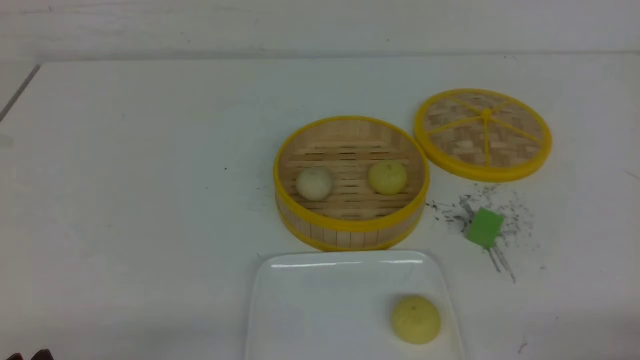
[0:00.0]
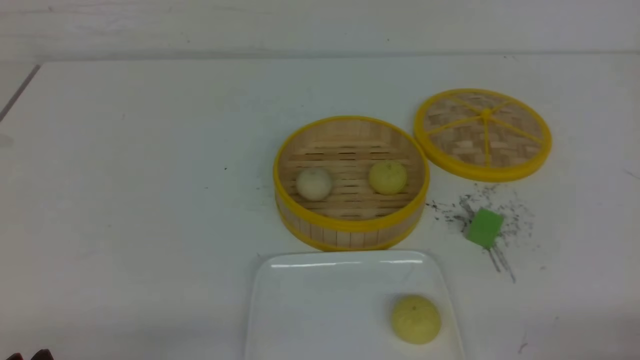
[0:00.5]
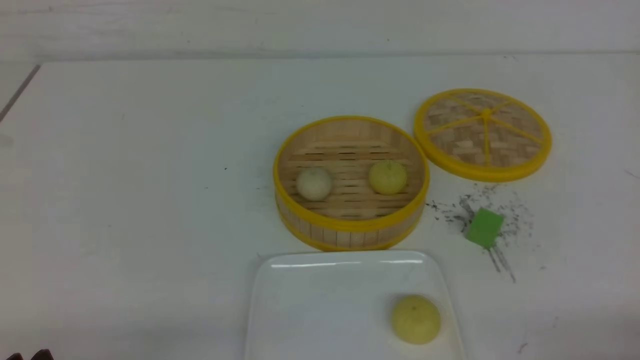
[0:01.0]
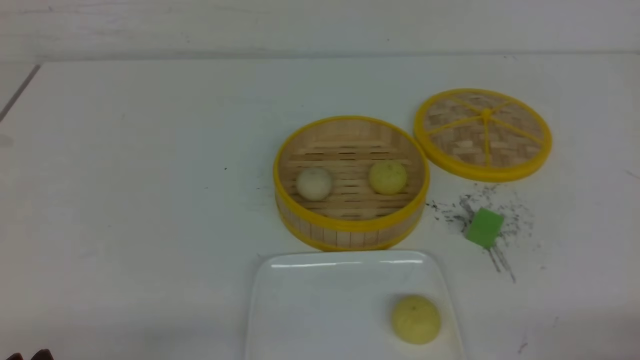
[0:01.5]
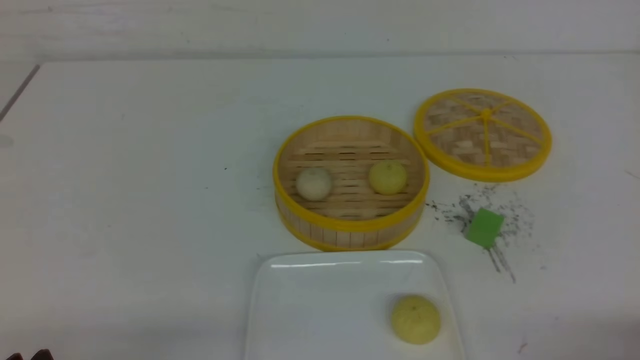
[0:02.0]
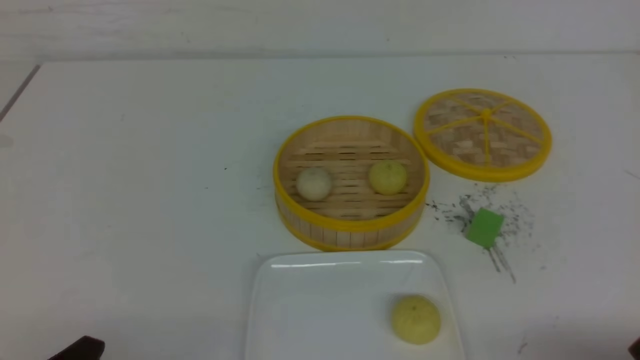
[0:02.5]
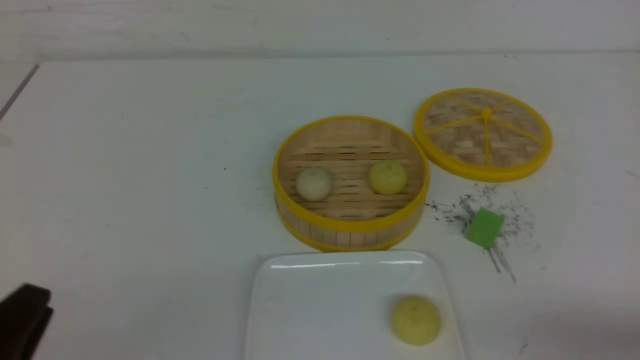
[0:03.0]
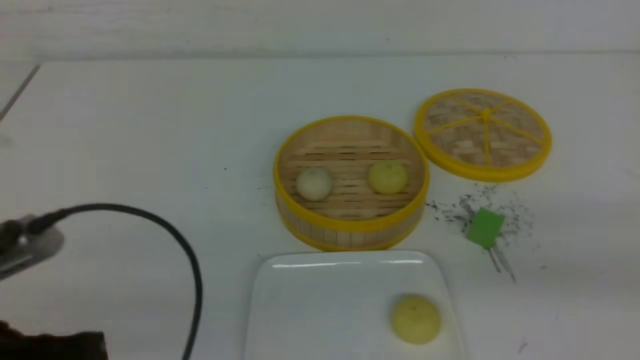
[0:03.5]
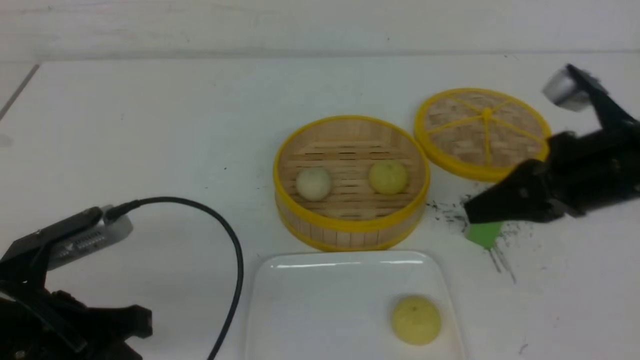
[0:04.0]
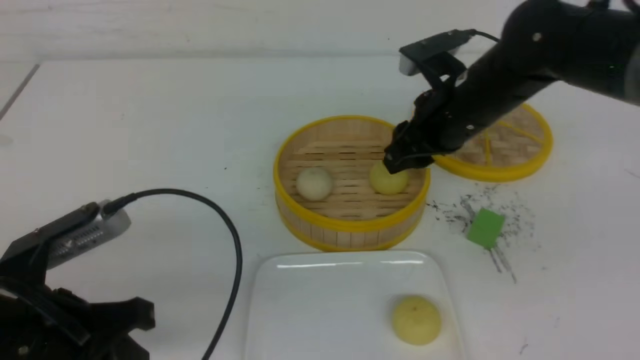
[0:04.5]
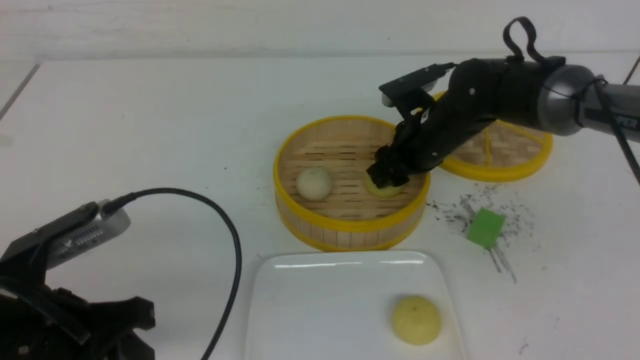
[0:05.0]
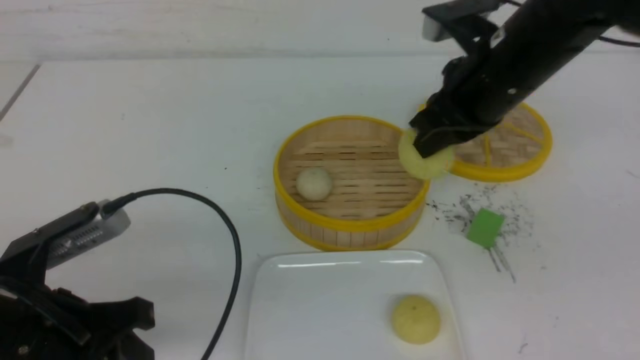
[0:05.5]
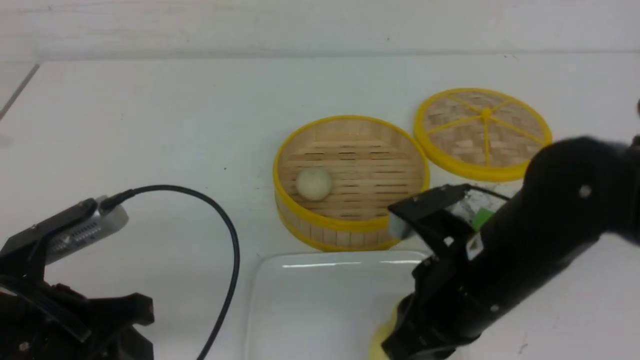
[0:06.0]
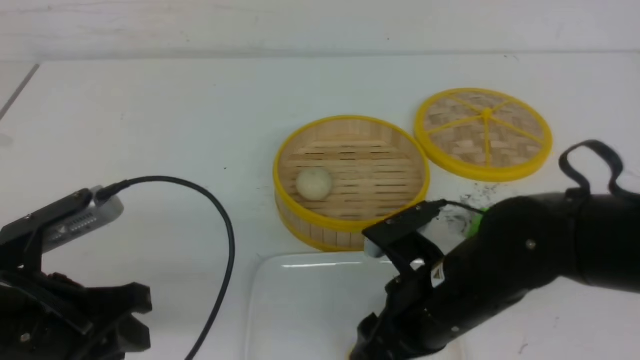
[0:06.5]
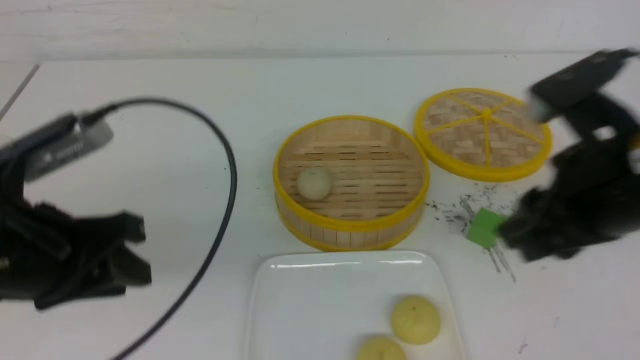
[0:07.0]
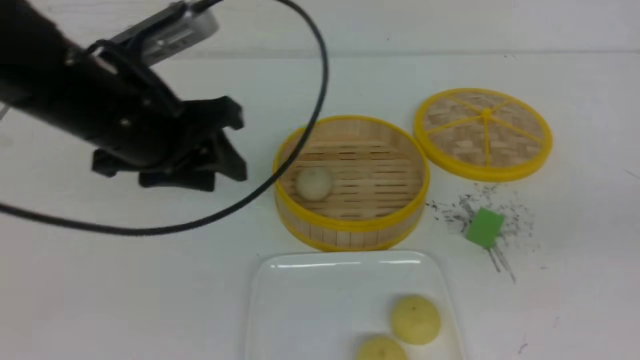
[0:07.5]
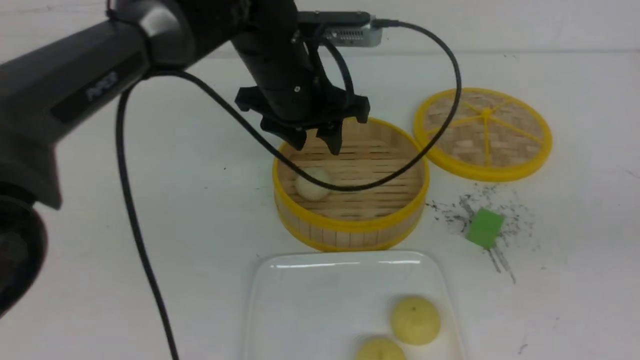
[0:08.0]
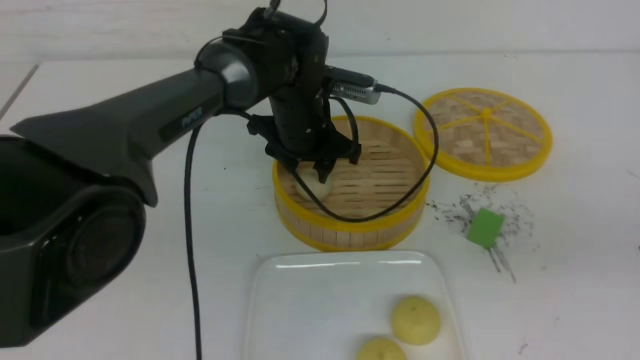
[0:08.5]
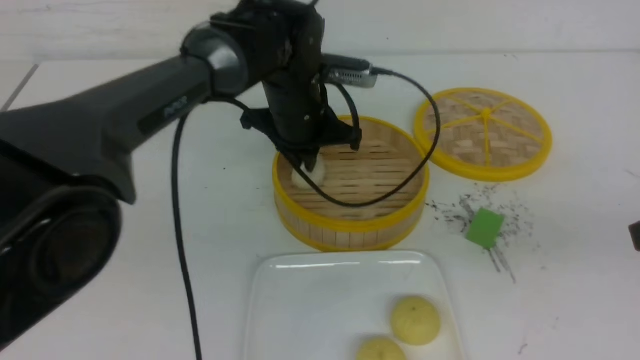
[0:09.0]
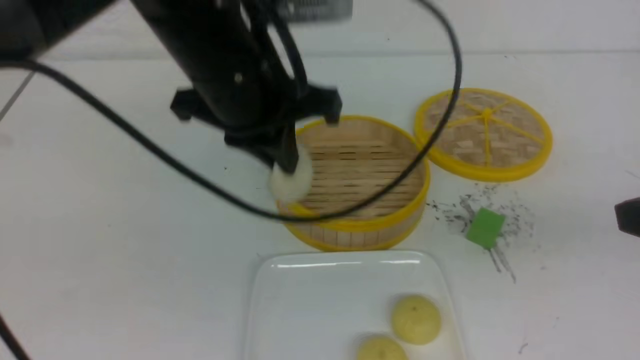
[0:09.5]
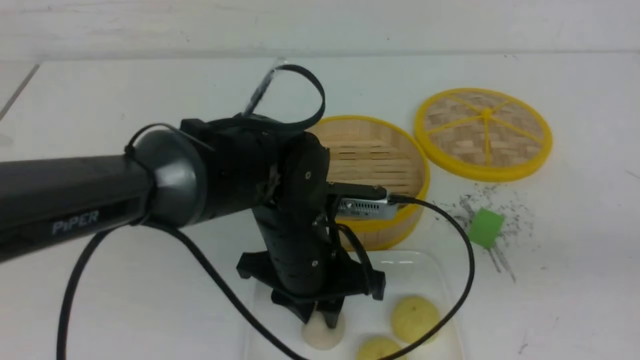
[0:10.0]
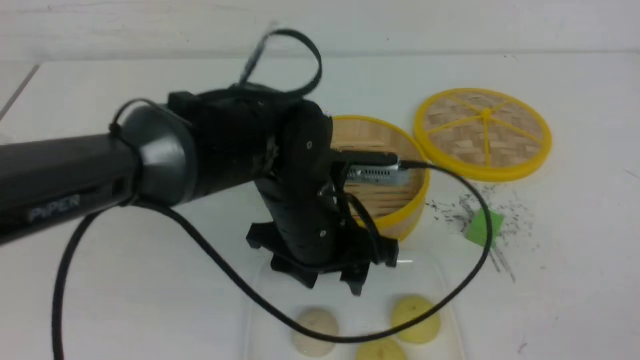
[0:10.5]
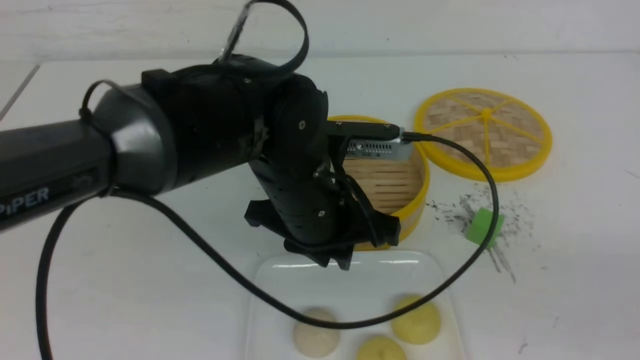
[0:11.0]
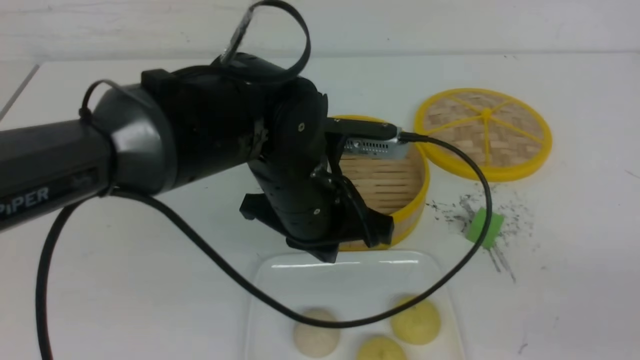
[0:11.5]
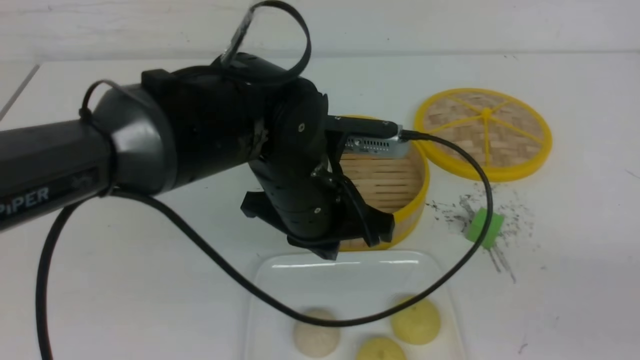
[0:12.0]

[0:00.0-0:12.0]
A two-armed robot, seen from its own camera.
Step, 0.0 to 4.5 s: use the right arm to grab the steamed stuffed bun that is closest to it.
Step, 5.0 to 6.5 s: use the right arm to put the steamed stuffed bun into the plate.
Step, 7.0 to 8.5 s: use the left arm to grab the steamed stuffed bun that is closest to it.
Step, 9.5 to 10.0 s: use the left arm to put the steamed stuffed bun into the plate.
2.0 to 4.0 s: The left gripper shifts roughly 10 cm forward and upward, and closes up. The right gripper travels forward, upward and to the left by some 25 cm, and closes its fingers.
4.0 to 6.0 s: The right gripper travels to the left and downward by approximately 15 cm, goes forward and returns, approximately 15 cm each way, and opens, then closes again; the left gripper opens its fingers.
6.0 to 8.0 s: The left gripper moves forward and to the right, approximately 30 cm, and opens up; the right gripper shifts about 20 cm to the right, upward and backward, and opens, then closes again.
8.0 to 10.0 s: The left gripper travels backward and downward by roughly 15 cm, and closes its fingers.
10.0 to 12.0 s: The left gripper shifts by about 5 cm, and closes. The right gripper is displaced downward and backward by roughly 10 cm.

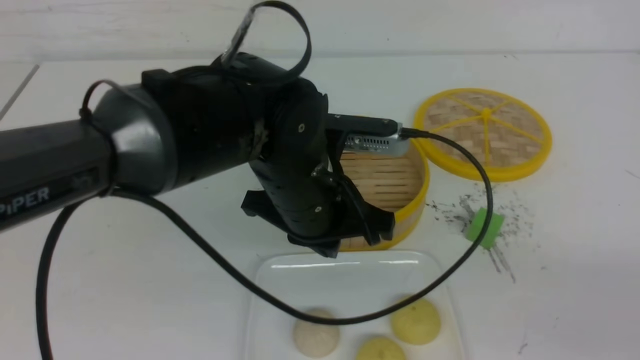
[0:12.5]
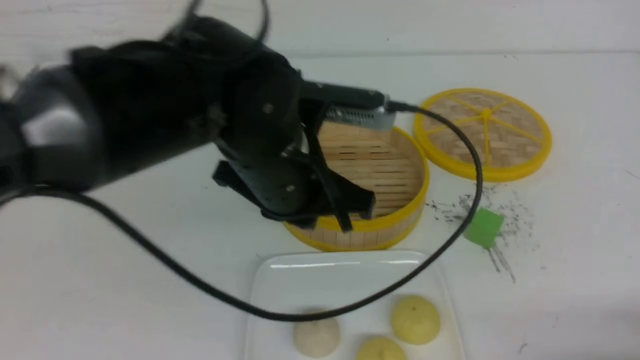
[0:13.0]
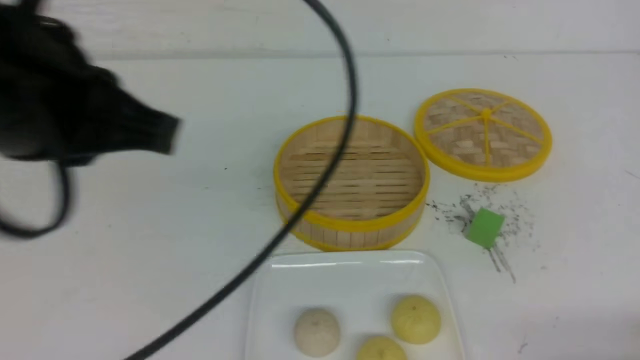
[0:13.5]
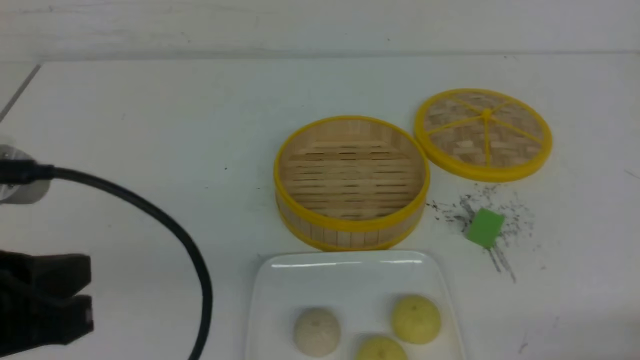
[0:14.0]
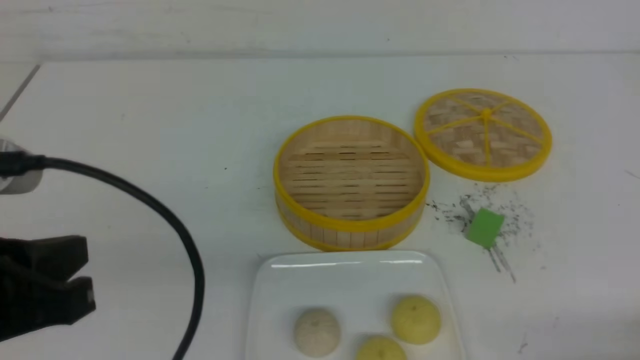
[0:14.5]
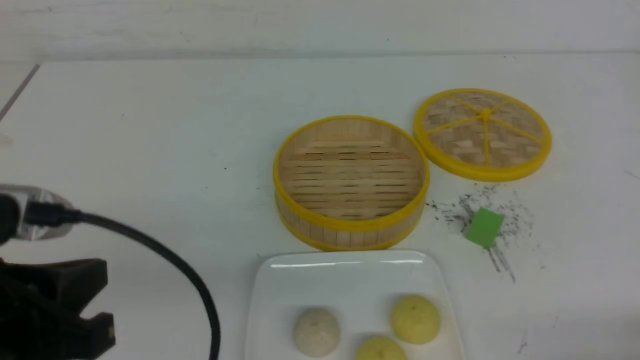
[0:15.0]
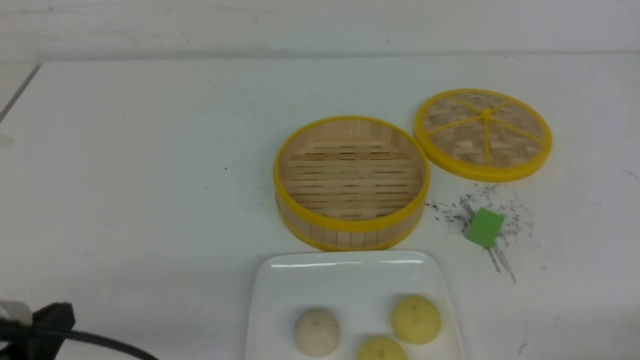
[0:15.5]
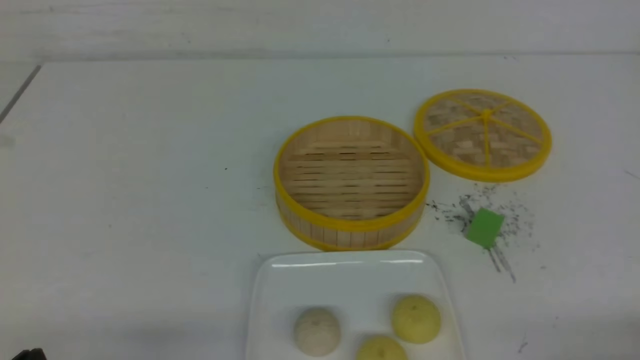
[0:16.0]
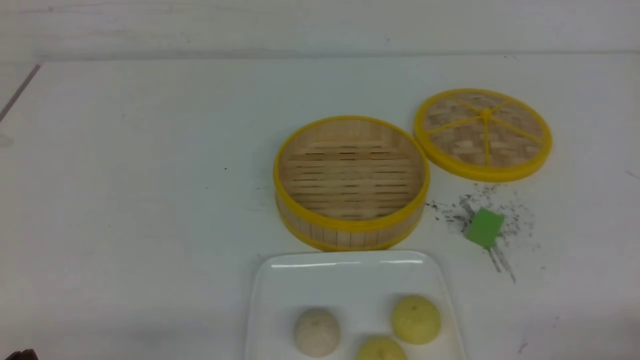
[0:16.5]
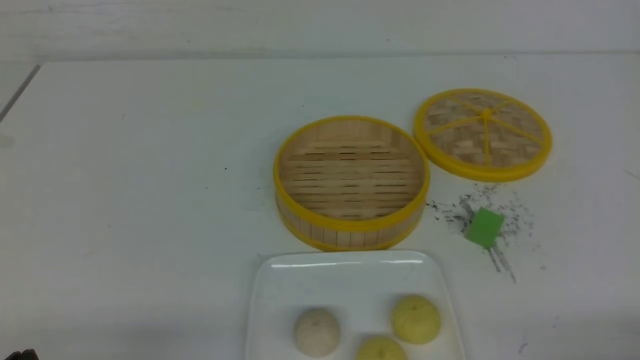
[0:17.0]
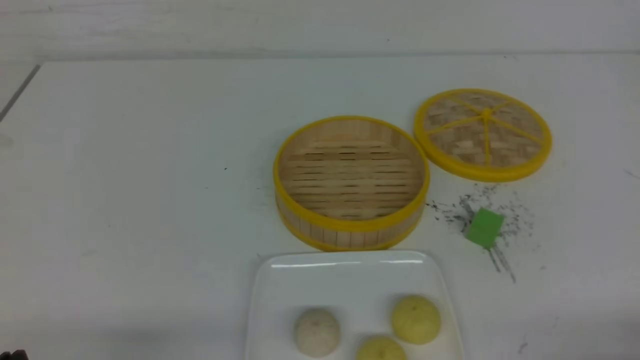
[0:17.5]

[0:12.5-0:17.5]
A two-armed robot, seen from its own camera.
12.5 to 15.0 s: The left gripper moves to the left and backward, approximately 25 cm. Meanwhile the right gripper travels downward by approximately 10 cm.
15.0 to 17.5 s: The left gripper heads downward and to the left, covering about 15 cm.

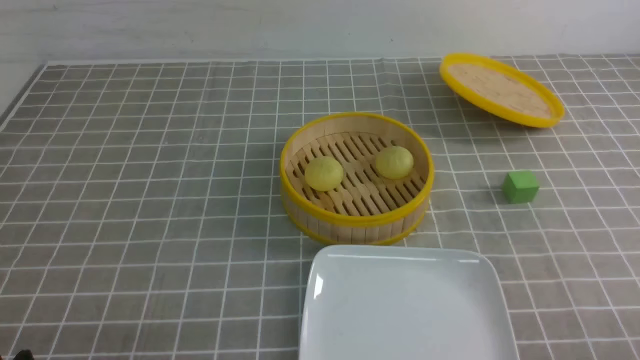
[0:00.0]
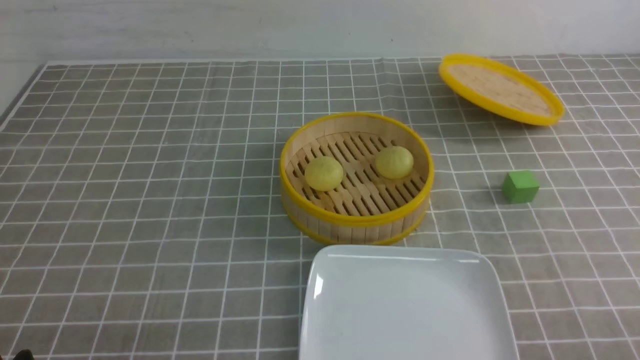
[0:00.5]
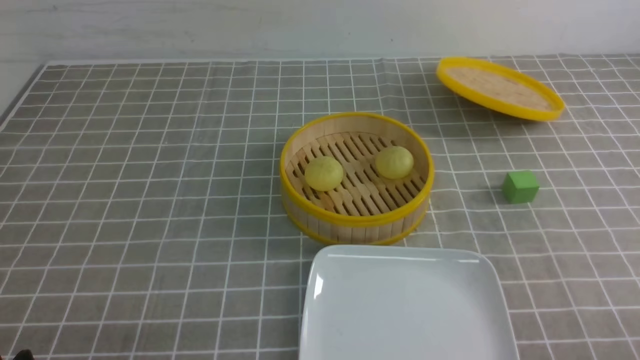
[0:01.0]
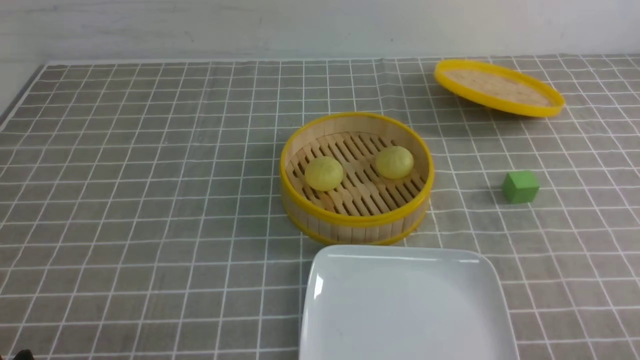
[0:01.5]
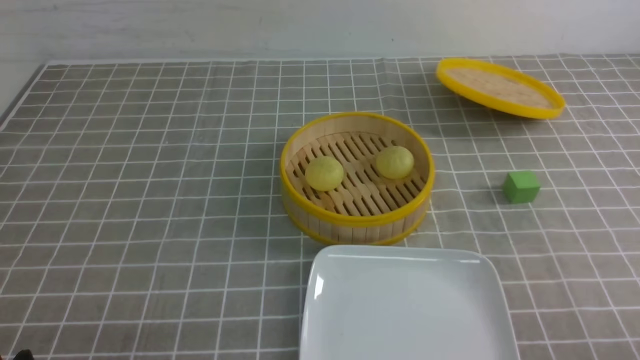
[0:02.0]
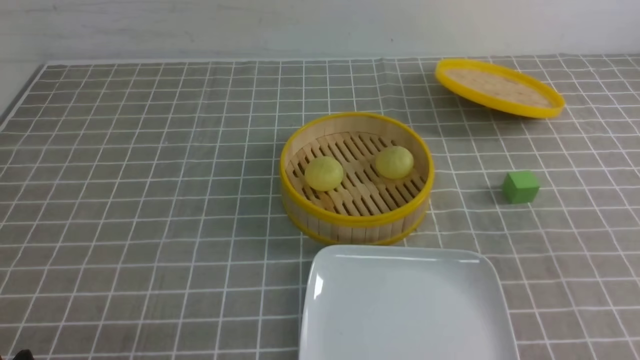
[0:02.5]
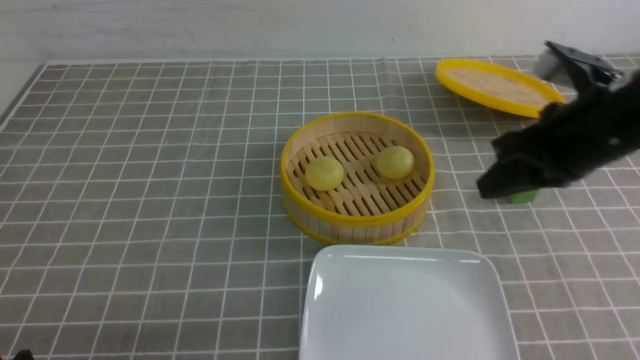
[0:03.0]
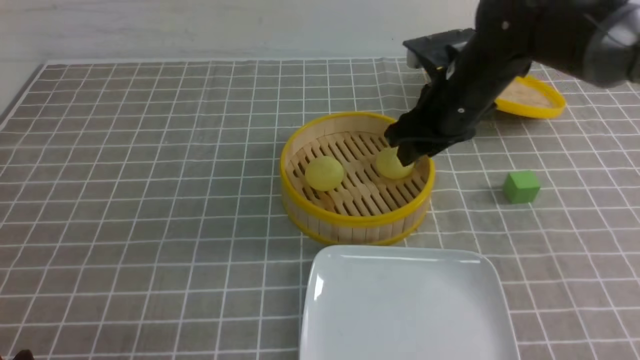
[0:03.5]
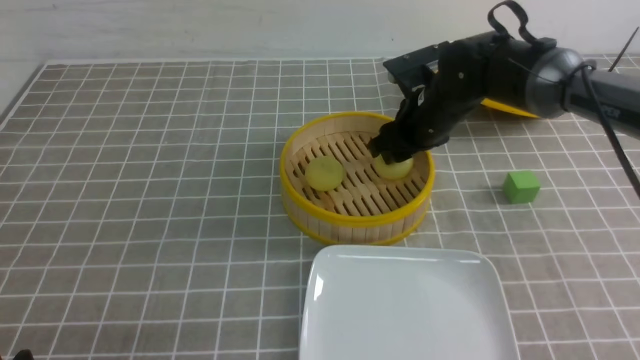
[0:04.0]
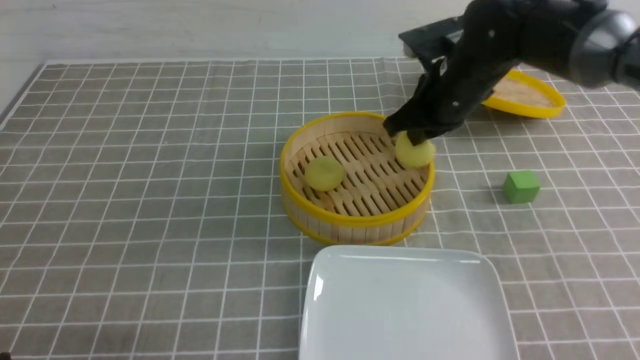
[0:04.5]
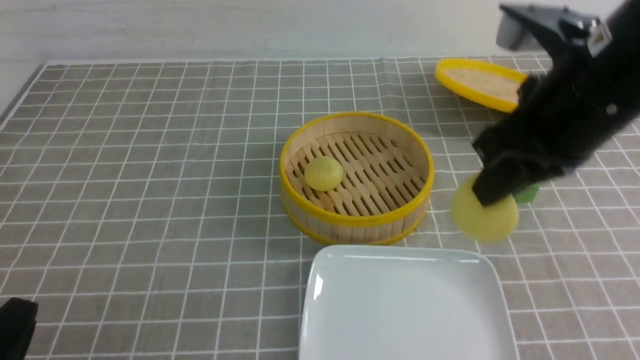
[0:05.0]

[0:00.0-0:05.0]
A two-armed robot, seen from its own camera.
Step, 0.0 to 4.0 s: use the right arm to grab the steamed stuffed bun that is closest to it.
2.5 to 5.0 s: The right gripper is displaced forward and to the left by approximately 20 cm, and opens, then closes once more.
